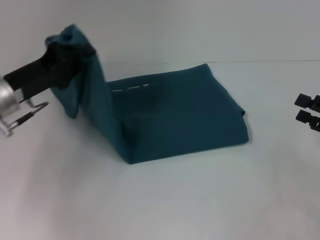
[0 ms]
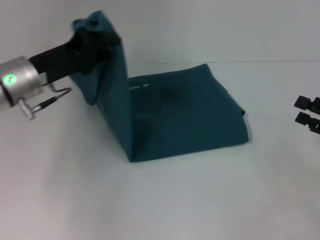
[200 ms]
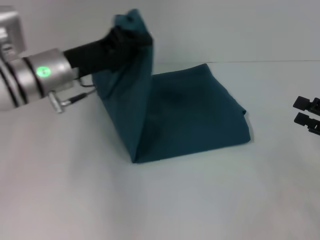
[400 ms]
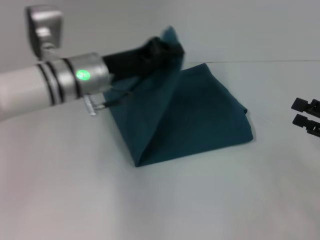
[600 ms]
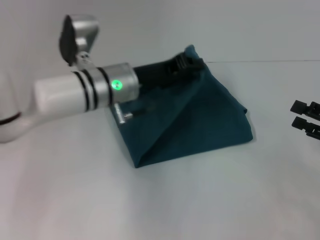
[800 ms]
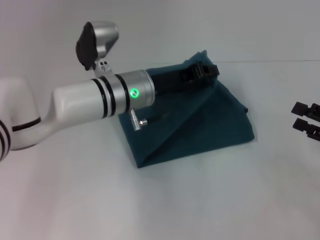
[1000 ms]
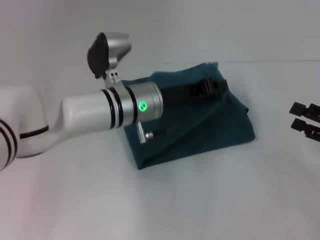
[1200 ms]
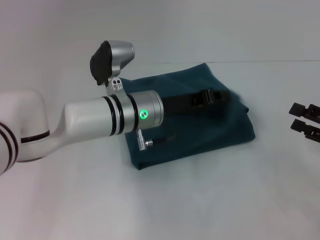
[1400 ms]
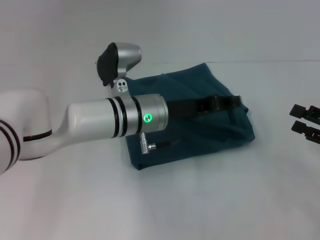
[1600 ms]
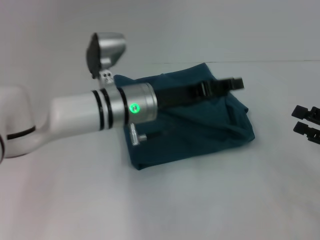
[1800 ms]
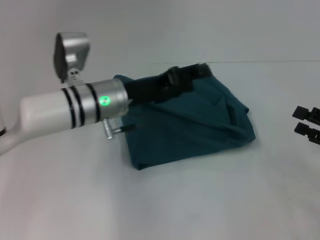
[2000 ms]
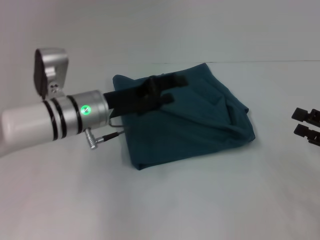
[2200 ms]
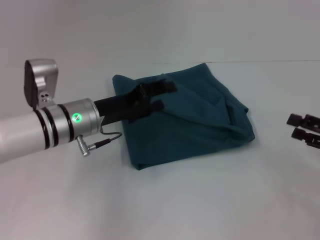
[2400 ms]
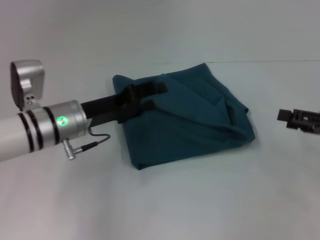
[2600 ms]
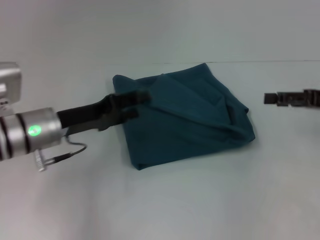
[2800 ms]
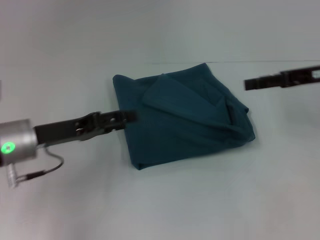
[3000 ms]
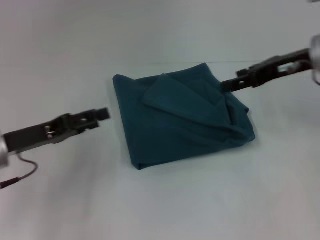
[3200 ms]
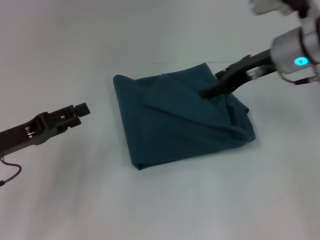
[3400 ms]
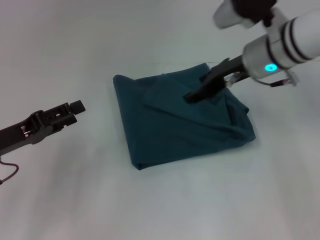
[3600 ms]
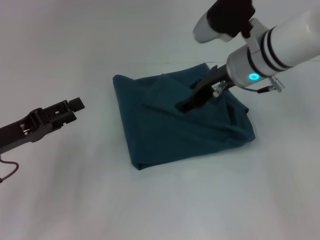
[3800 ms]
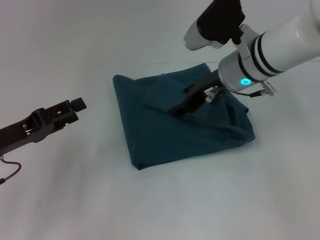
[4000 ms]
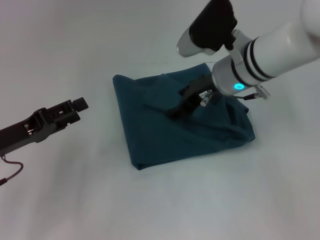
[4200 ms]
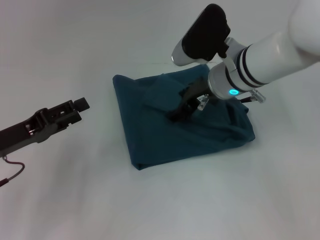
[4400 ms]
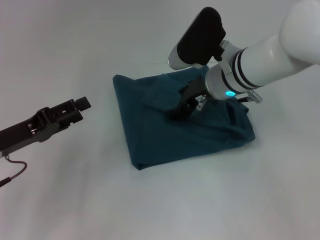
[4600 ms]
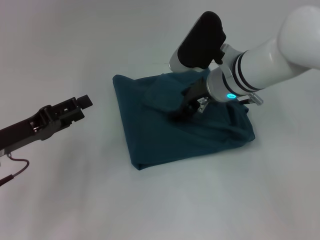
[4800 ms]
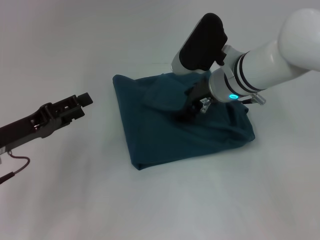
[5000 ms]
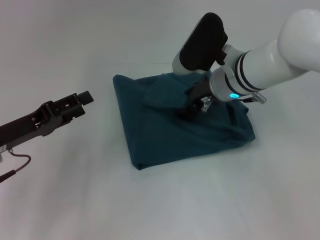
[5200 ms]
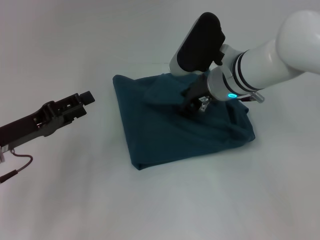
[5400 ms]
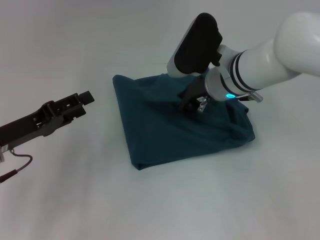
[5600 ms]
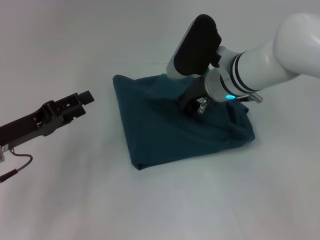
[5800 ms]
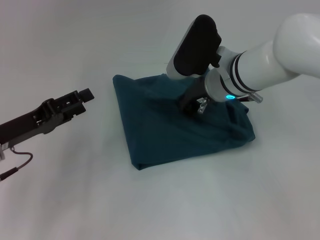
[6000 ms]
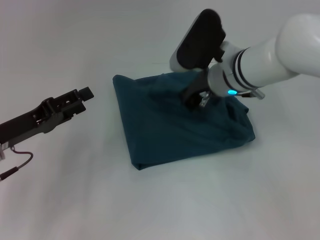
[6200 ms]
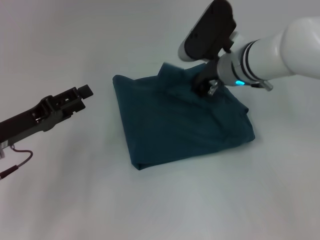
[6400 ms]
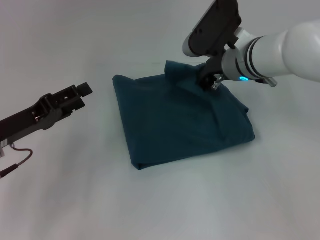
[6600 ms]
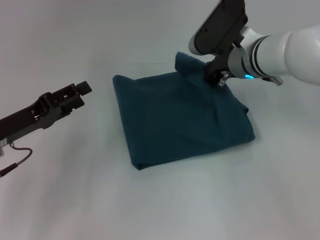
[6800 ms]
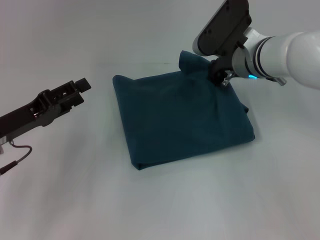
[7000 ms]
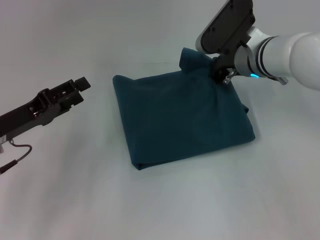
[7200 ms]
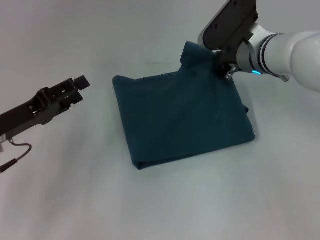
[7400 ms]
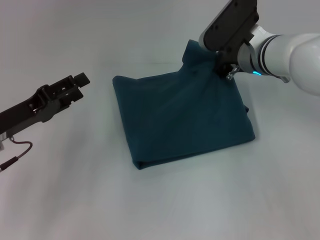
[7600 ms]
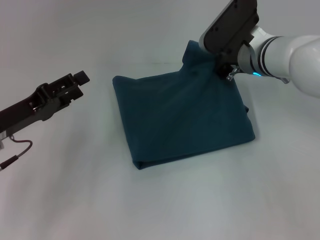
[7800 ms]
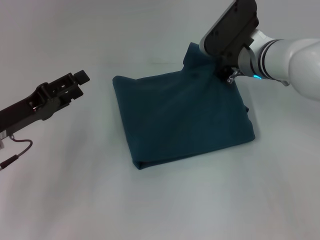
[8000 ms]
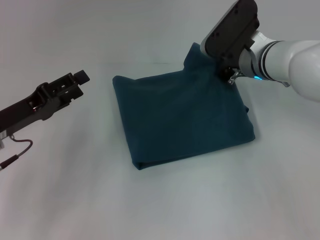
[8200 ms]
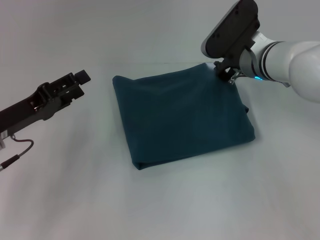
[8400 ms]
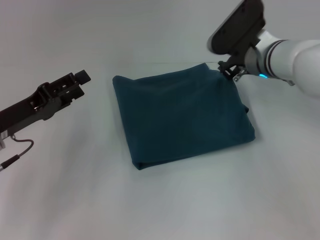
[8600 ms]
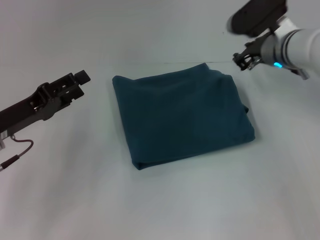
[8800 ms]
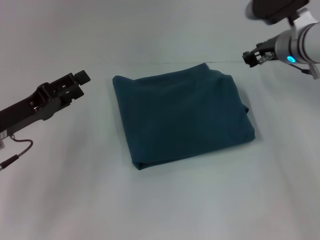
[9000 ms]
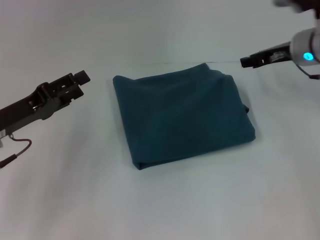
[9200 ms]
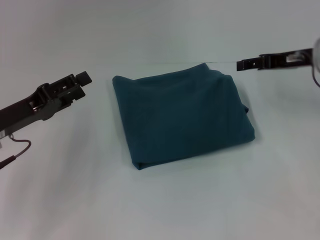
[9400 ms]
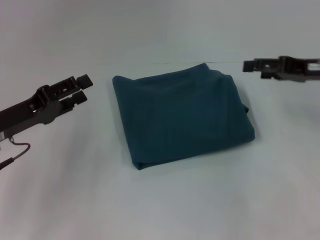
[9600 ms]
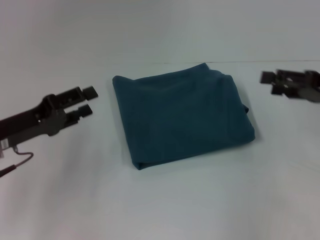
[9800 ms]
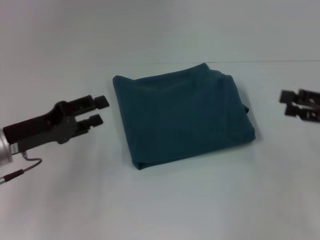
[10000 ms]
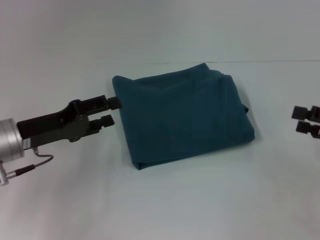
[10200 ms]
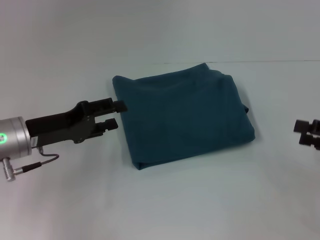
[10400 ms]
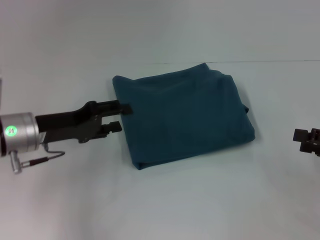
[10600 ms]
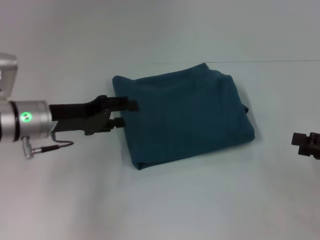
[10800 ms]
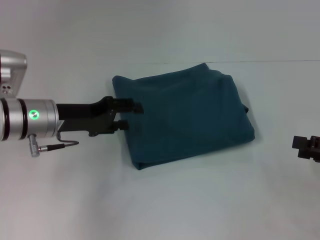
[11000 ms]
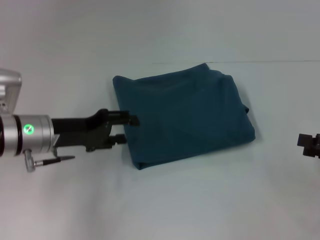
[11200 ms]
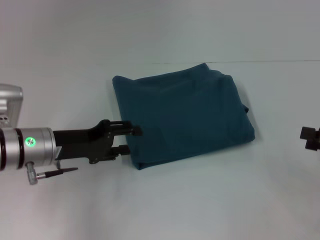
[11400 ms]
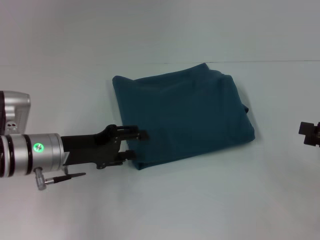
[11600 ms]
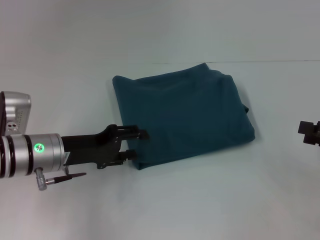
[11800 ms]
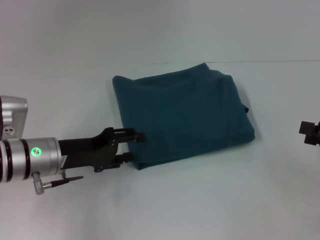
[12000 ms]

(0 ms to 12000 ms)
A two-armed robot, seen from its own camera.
0 ms - 1600 ms: The left gripper shifts some 20 cm to the right.
1600 ms - 3000 ms: The left gripper heads to the left, covering some 20 cm, and opens up. Meanwhile the right gripper travels forward, upward and to the left by roughly 15 cm.
3000 ms - 4400 ms: The right gripper moves to the left, approximately 20 cm. Meanwhile the left gripper is displaced to the left by approximately 5 cm.
4400 ms - 6000 ms: The right gripper closes up.
6000 ms - 7600 ms: The right gripper shifts by roughly 5 cm.
7600 ms - 9000 ms: The right gripper heads to the right, covering some 5 cm, and opens its fingers.
9000 ms - 10400 ms: The right gripper shifts approximately 25 cm backward and to the right, and opens up.
10400 ms - 12000 ms: The grippers make only small movements.

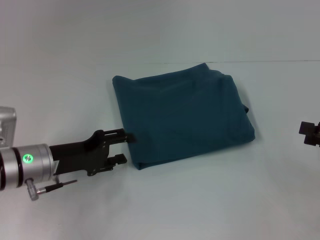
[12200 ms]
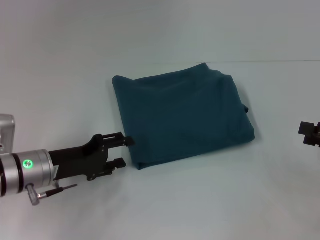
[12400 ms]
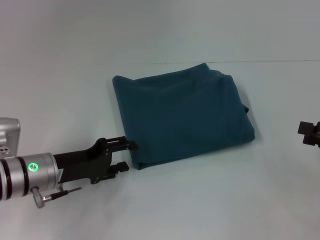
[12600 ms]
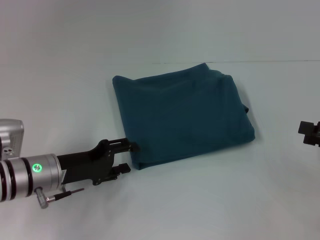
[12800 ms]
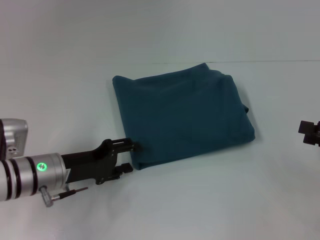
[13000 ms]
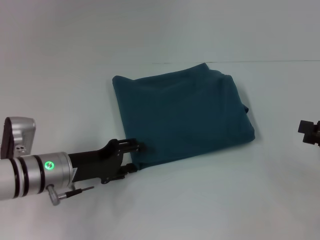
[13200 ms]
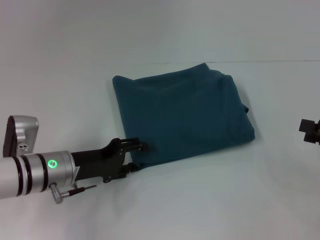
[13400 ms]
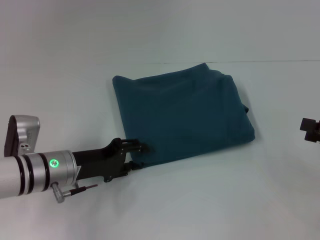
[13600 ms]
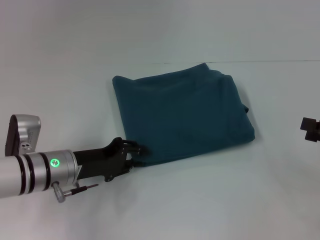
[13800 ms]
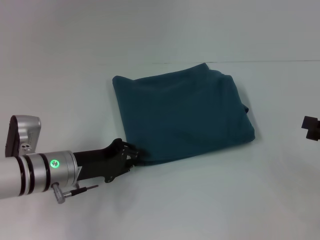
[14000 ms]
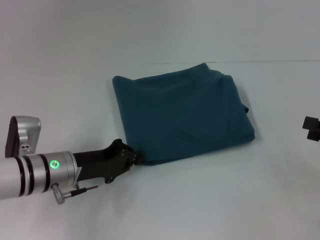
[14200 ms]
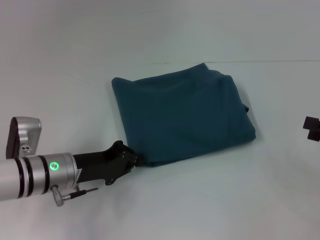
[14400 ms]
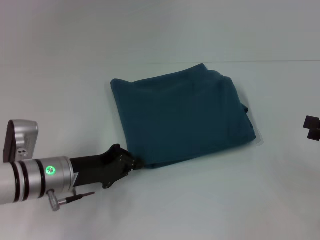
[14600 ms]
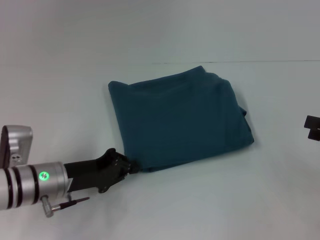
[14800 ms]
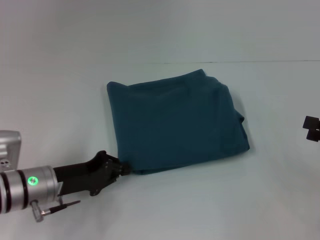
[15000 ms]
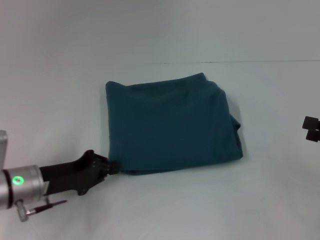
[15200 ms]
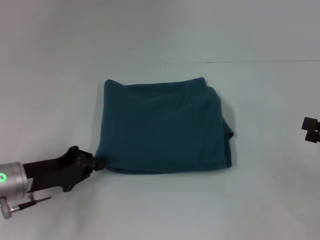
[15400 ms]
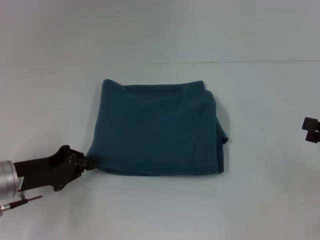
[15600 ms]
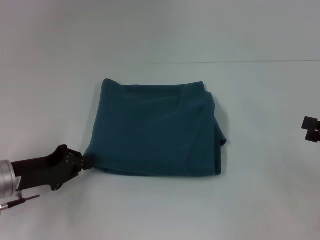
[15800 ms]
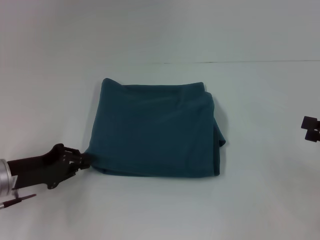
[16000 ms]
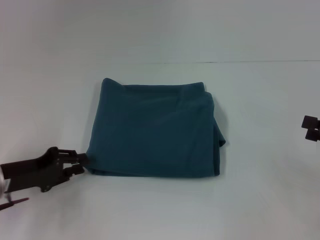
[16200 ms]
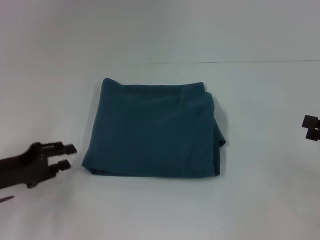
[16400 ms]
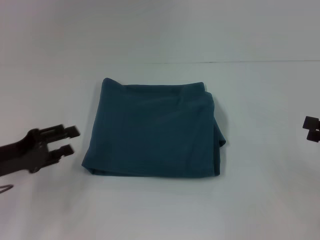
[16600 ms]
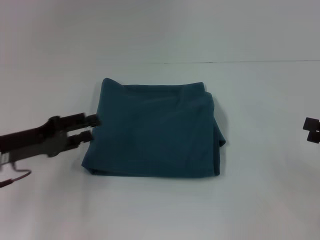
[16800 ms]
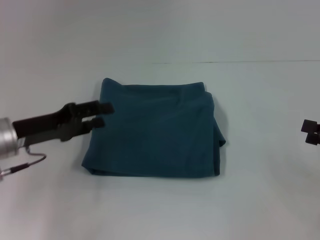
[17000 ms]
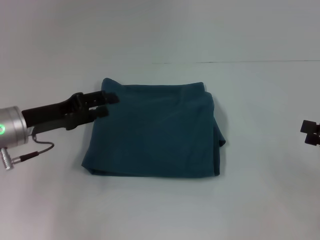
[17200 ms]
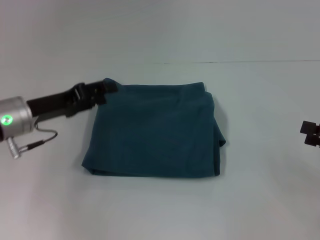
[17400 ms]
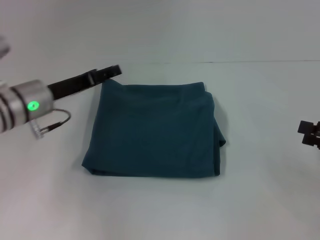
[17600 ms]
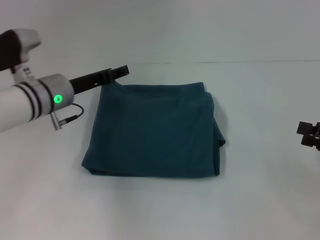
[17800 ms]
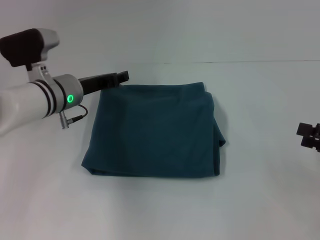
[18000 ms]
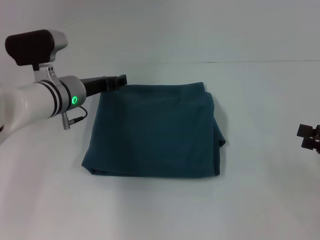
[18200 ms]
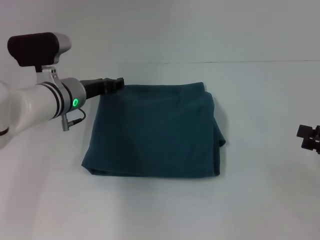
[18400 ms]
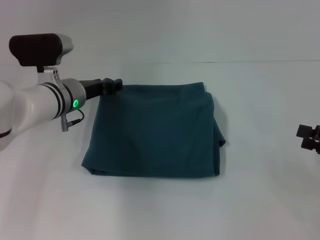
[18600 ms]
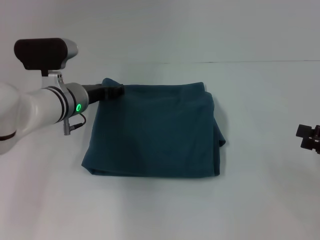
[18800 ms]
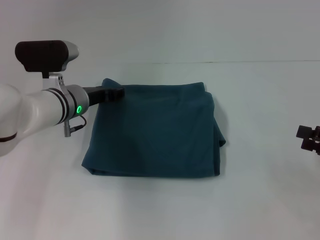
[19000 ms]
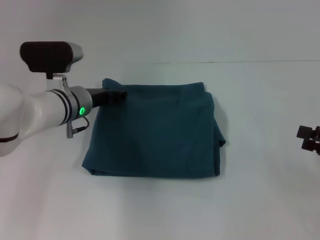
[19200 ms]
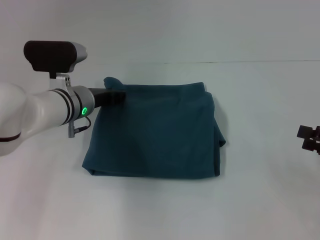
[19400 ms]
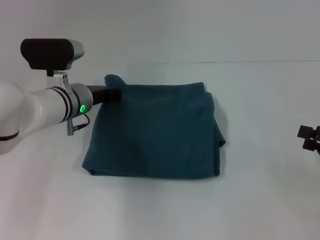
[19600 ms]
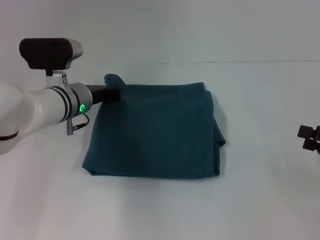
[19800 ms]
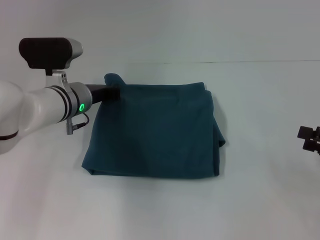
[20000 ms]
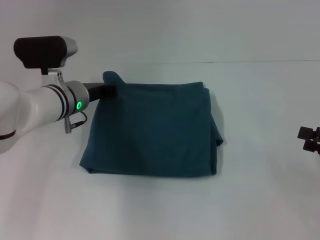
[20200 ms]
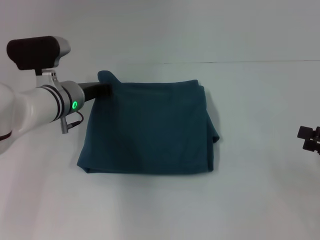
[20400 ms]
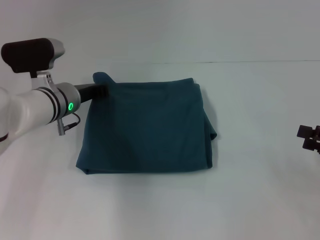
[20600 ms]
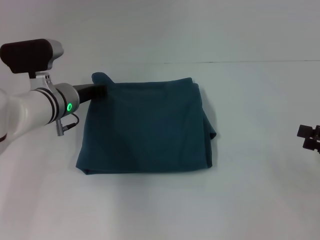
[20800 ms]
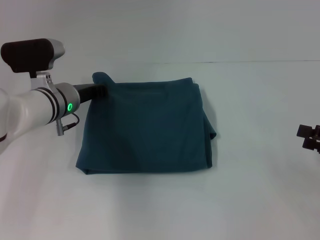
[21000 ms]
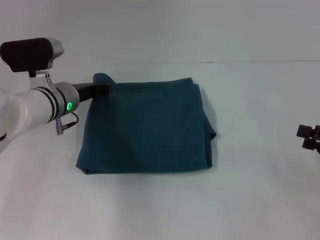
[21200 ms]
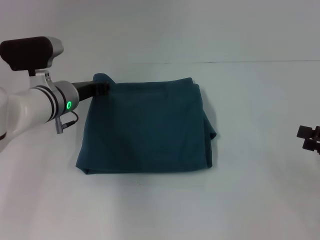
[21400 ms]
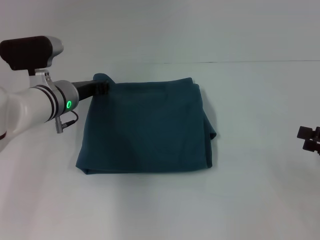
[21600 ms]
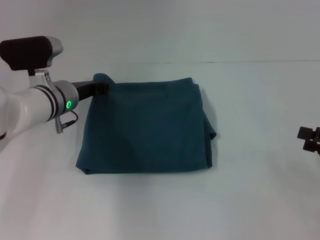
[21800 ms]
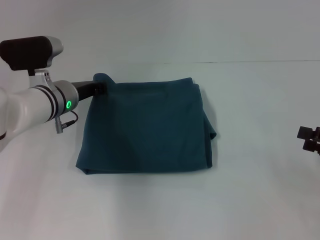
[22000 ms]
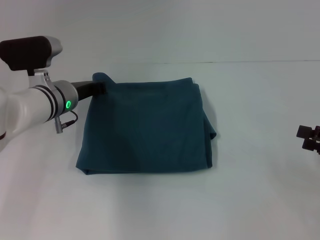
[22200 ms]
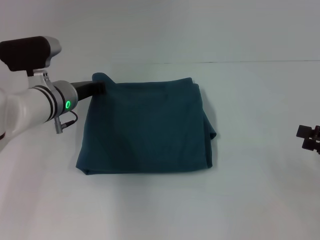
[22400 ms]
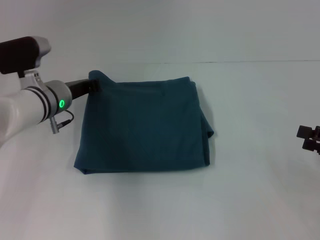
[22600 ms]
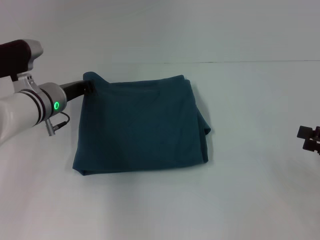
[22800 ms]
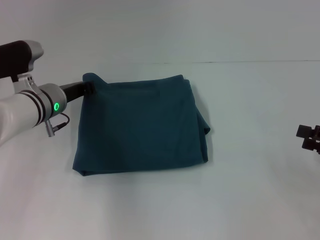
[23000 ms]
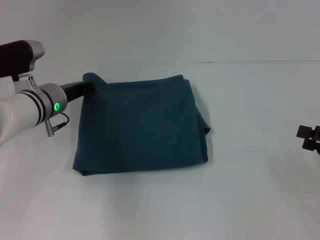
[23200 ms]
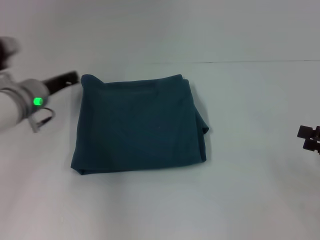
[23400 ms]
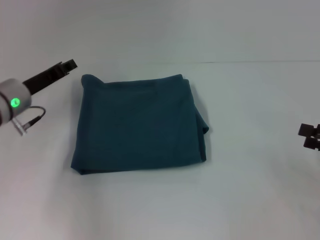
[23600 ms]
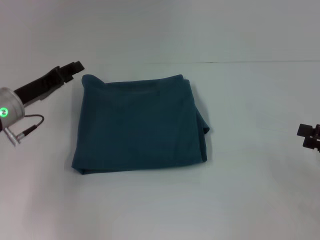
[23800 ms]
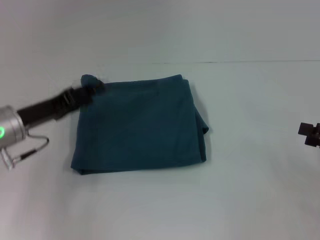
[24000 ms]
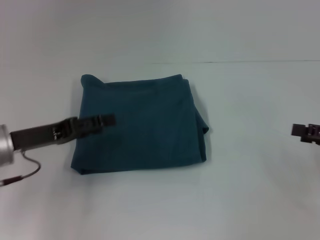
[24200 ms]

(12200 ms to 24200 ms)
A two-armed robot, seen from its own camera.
12200 ms - 13800 ms: The grippers move only a little.
13800 ms - 15200 ms: The left gripper moves about 5 cm, and closes.
15200 ms - 16600 ms: The left gripper is displaced to the left by some 5 cm, and opens.
16600 ms - 18200 ms: The left gripper is displaced forward and to the right by some 20 cm.
18200 ms - 19800 ms: The left gripper closes up.
19800 ms - 22600 ms: The grippers move only a little.
22600 ms - 24200 ms: The left gripper moves backward and to the left, about 15 cm, and opens.
